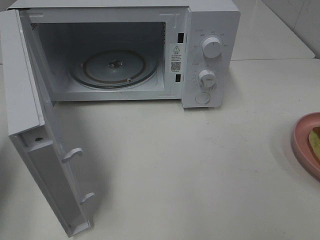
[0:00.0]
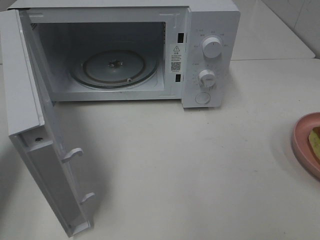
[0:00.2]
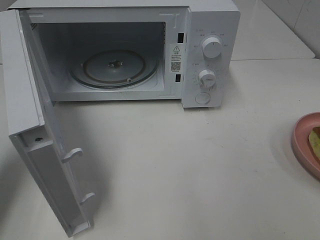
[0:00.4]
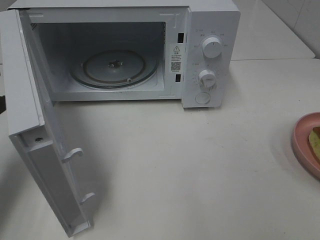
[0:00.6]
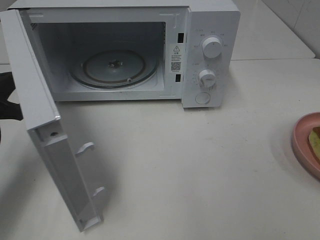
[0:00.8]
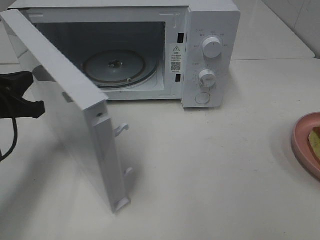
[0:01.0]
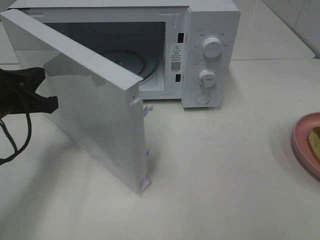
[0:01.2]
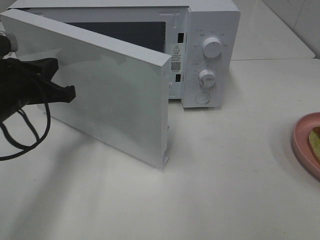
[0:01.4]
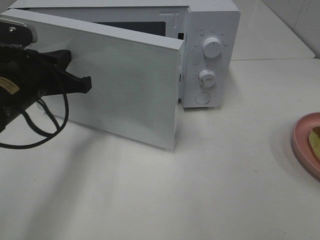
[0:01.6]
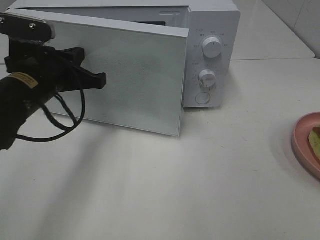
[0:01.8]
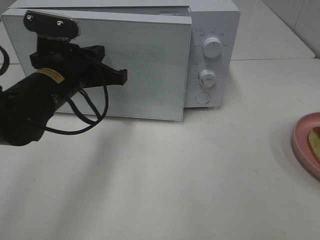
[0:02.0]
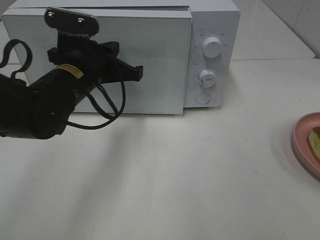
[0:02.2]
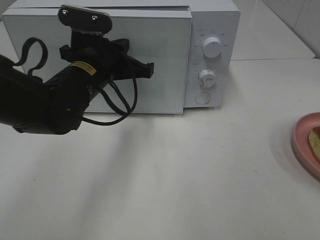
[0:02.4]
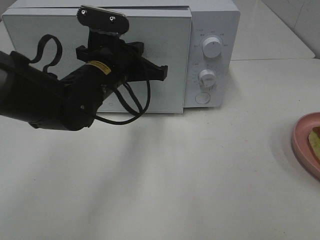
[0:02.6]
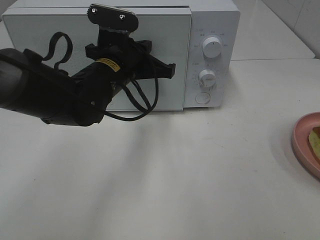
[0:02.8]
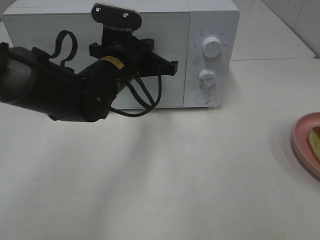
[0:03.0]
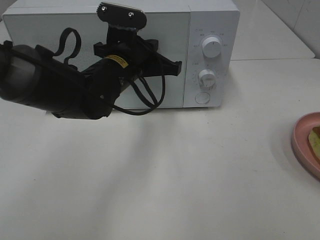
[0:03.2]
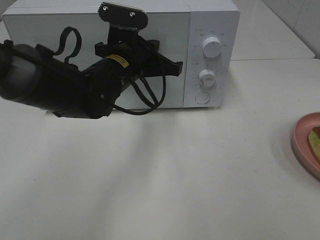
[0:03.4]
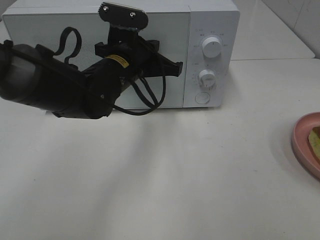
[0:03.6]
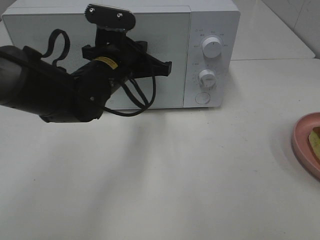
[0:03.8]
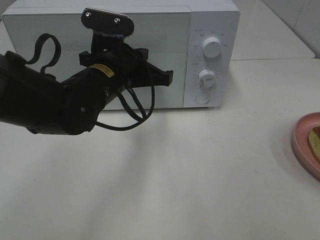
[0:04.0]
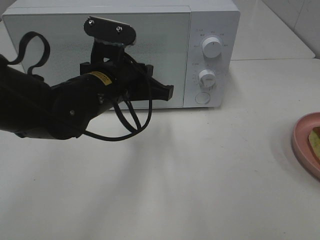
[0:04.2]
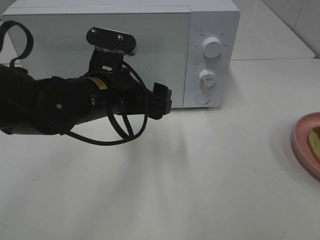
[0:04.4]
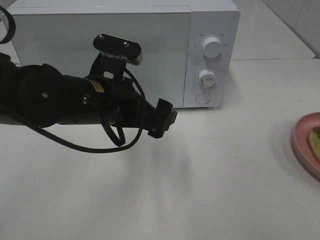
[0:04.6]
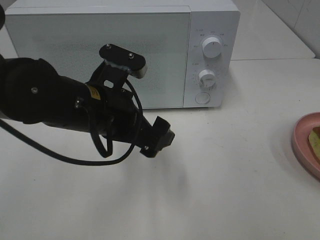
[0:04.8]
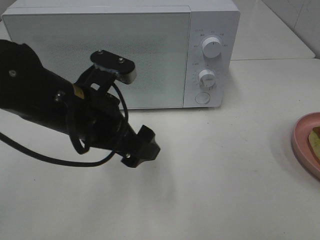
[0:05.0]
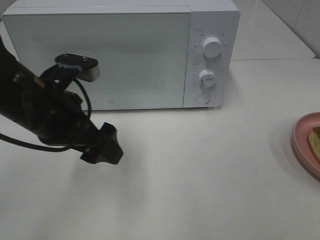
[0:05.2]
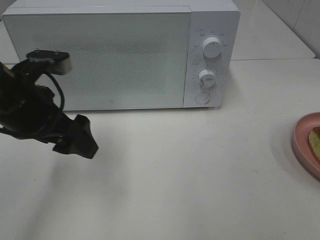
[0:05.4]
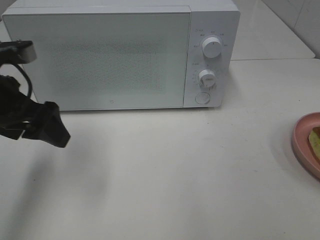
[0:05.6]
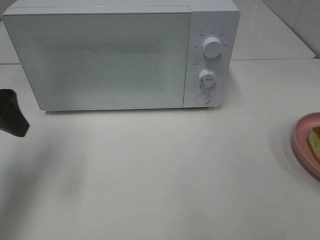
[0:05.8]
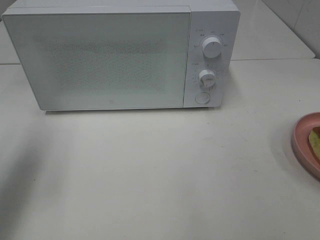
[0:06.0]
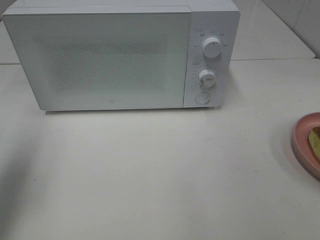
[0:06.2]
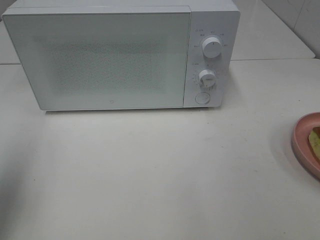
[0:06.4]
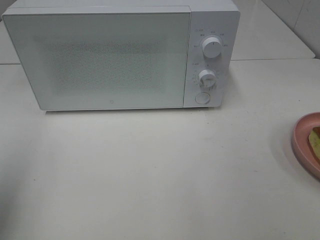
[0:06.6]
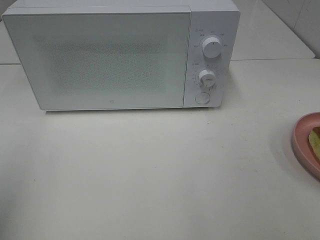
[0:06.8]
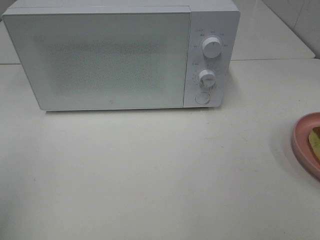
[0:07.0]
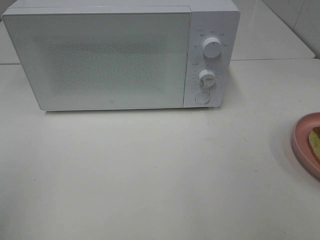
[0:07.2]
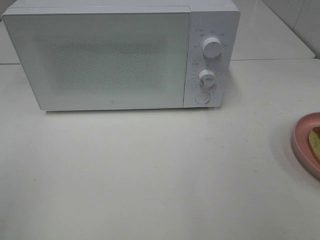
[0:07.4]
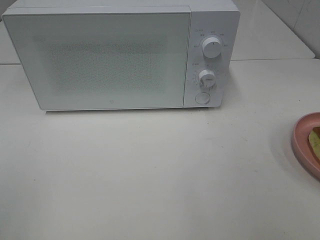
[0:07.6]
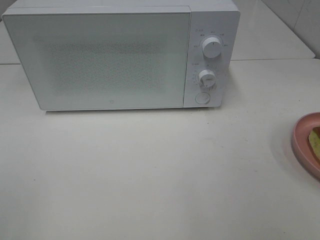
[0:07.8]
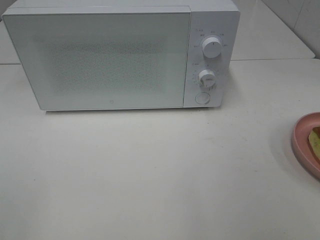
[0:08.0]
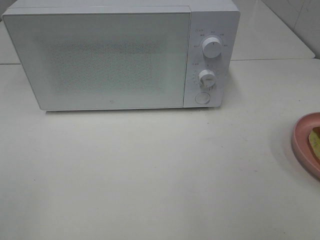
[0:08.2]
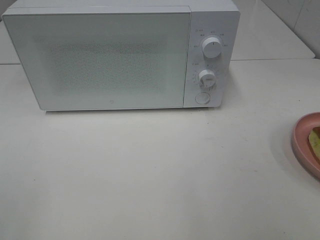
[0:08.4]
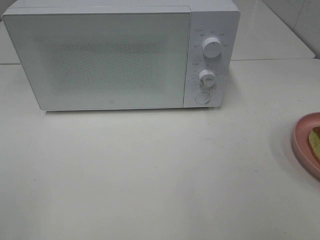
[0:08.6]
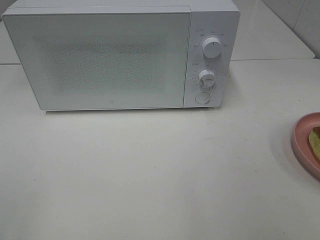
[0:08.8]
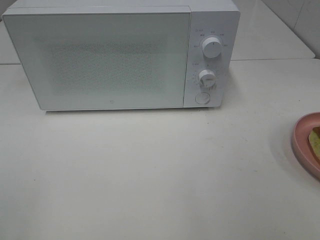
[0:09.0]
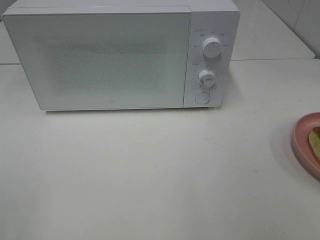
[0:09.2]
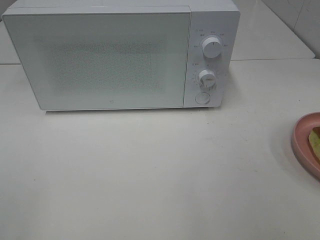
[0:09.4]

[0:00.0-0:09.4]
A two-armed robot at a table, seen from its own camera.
Task of the whole recording: Heat Sandwich.
Step, 0:00.0 to 0:04.0: Left hand: close the microwave door.
0:00.0 to 0:01.6: The left gripper goes approximately 15 cm to the right and forward.
0:01.6 to 0:03.2: The left gripper shifts approximately 15 cm to the right and forward.
0:03.2 to 0:04.8: The left gripper goes roughly 10 cm backward, and opens up.
0:04.8 to 0:06.2: The left gripper heads to the left and upward, covering about 25 cm.
0:06.2 to 0:07.8: The left gripper shifts approximately 20 cm backward.
0:07.8 to 0:09.4: Both grippers stay about where they are.

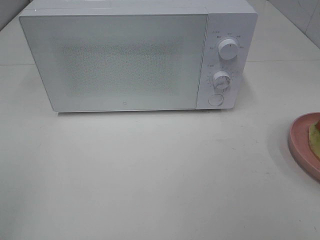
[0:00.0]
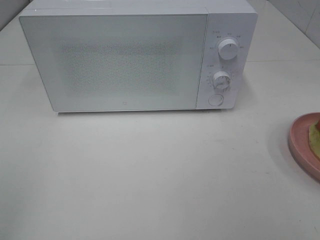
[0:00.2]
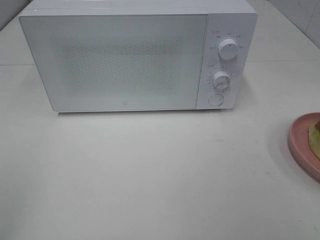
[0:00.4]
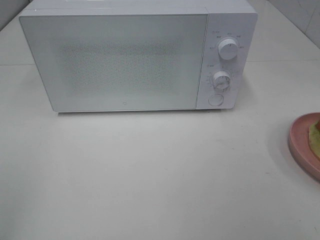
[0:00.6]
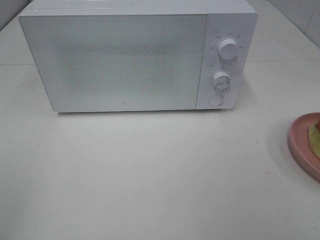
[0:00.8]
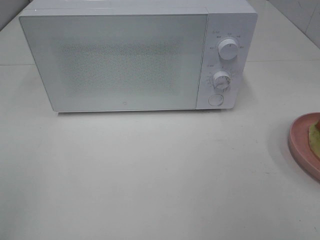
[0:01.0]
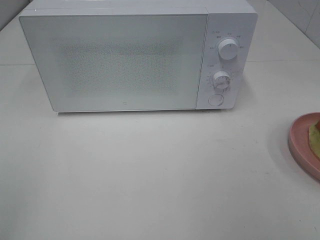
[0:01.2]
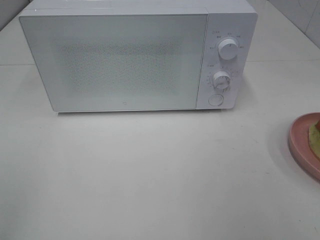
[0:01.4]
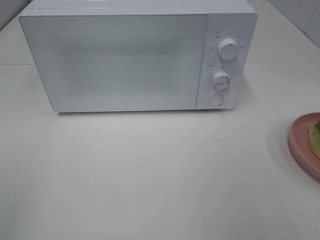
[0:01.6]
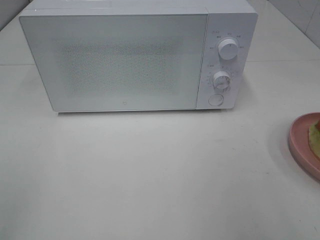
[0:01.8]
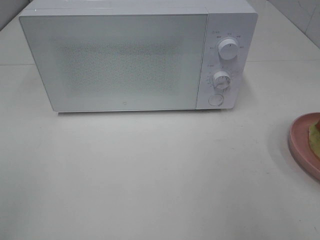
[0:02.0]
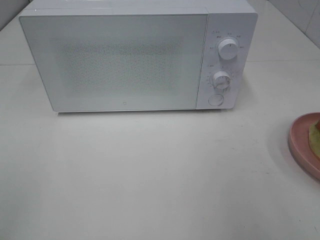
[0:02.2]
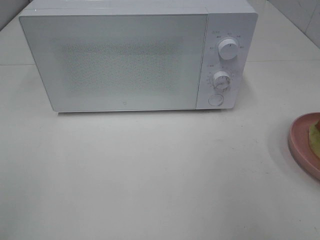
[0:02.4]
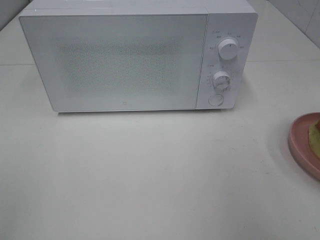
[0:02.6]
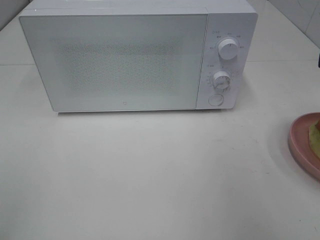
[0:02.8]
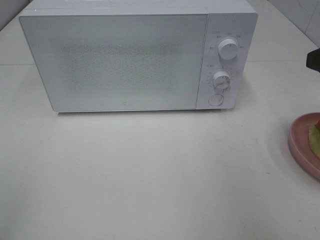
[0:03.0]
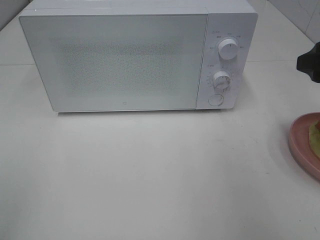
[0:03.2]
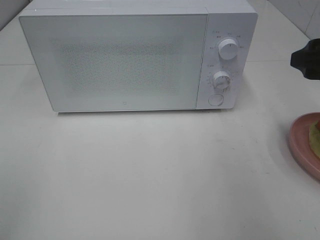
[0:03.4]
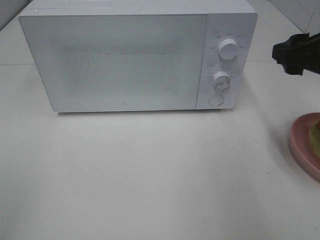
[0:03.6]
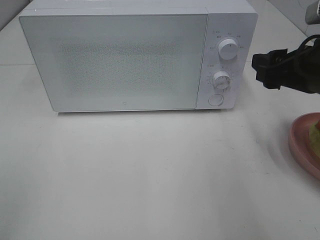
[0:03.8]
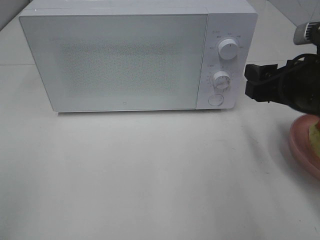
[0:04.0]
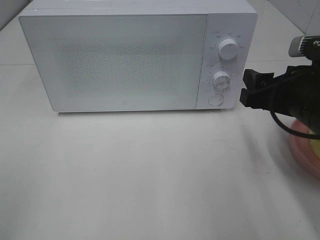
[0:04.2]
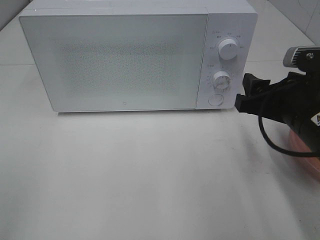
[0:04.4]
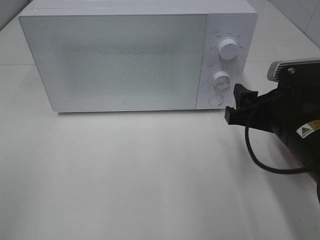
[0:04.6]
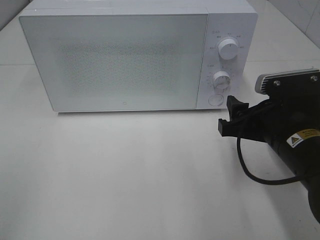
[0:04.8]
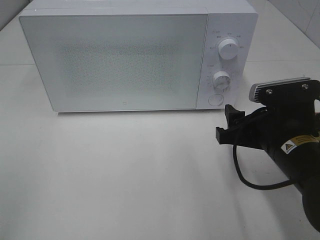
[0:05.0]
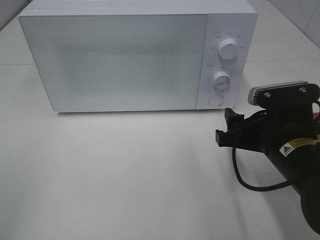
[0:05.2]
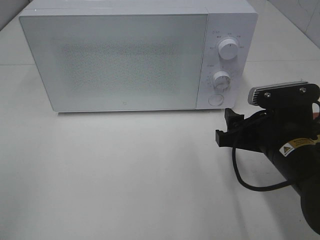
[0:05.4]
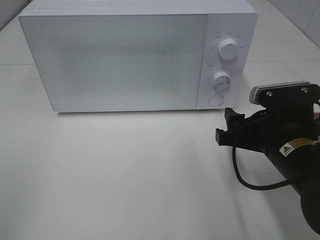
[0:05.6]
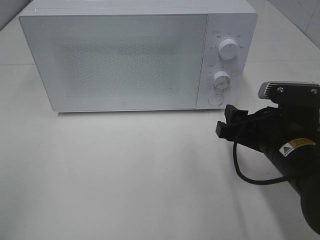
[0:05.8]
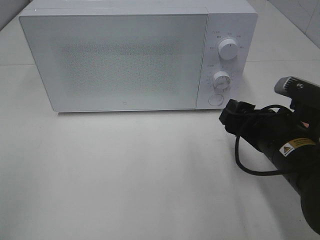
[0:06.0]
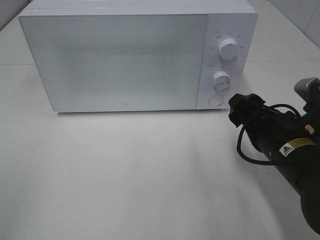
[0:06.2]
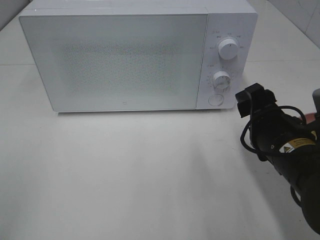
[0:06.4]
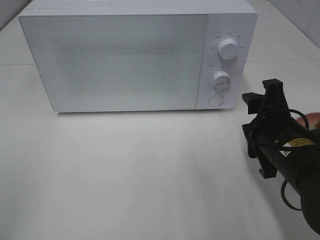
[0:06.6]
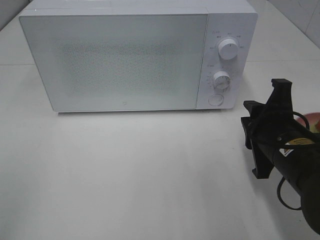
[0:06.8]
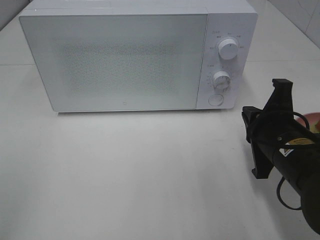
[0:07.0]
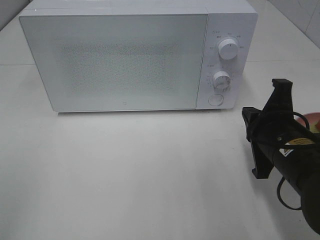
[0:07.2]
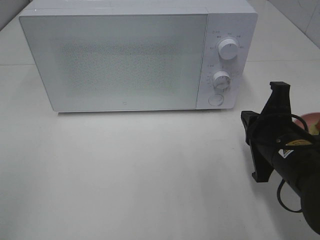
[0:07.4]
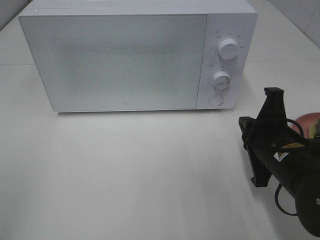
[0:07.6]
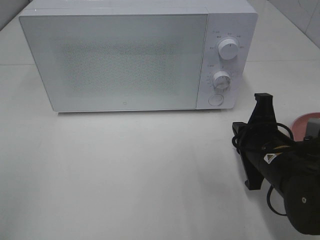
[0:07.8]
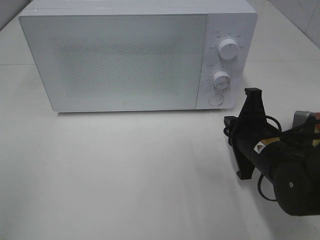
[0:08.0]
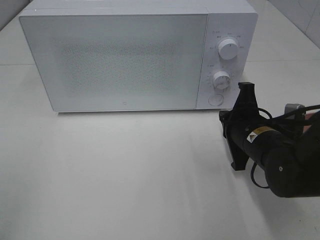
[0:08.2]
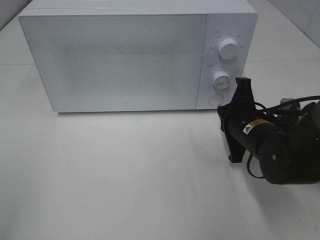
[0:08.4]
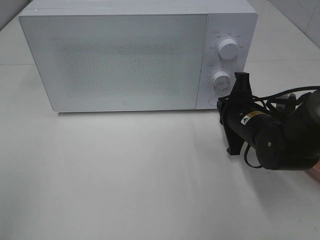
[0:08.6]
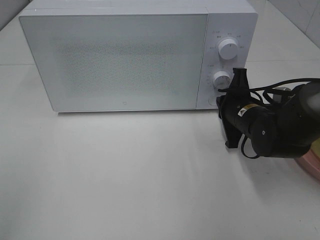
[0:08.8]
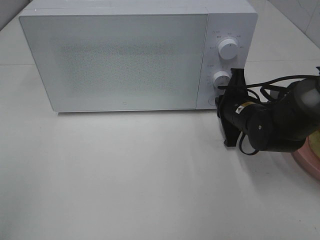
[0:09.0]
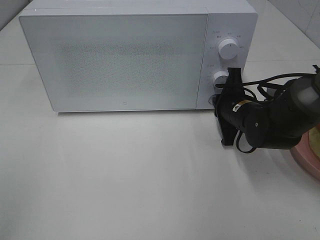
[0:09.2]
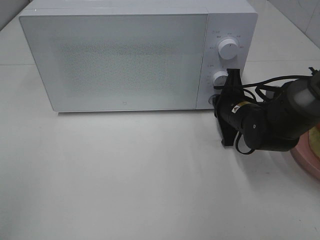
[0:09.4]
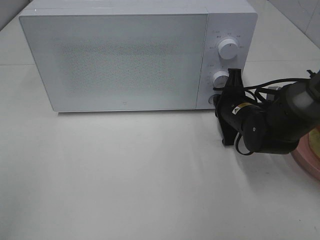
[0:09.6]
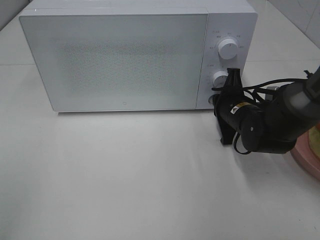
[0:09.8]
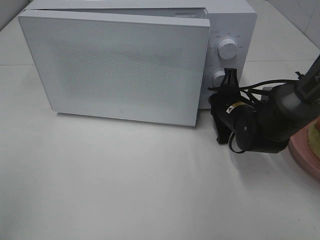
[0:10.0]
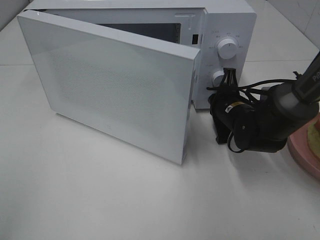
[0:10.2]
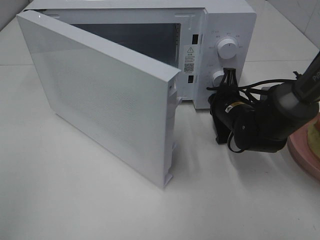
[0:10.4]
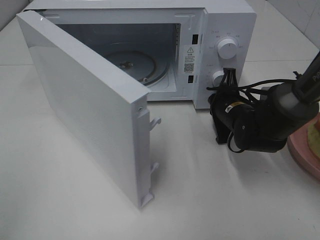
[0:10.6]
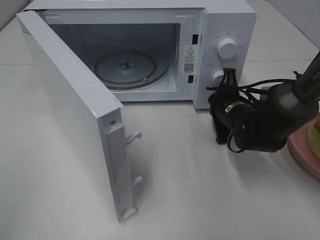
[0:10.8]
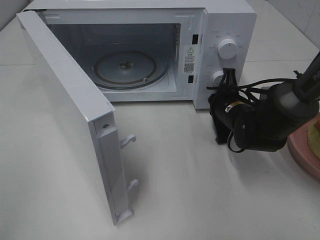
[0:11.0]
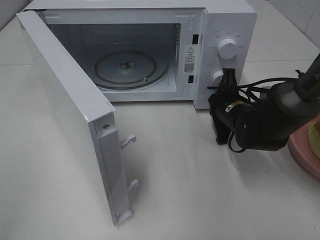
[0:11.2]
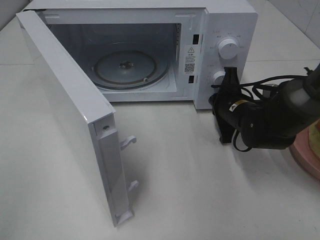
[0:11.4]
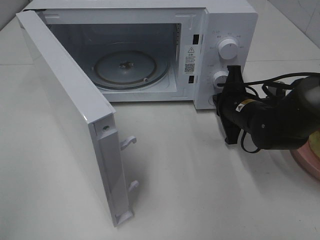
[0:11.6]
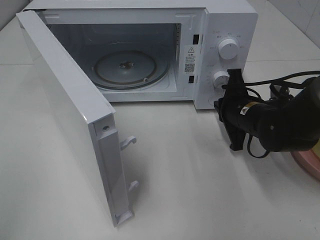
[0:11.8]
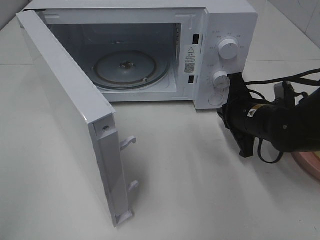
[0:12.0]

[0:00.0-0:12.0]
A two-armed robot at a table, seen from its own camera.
Task of the whole recording: Heat Sandwich.
Step, 0:00.0 to 0:11.8: Right hand: press the switch.
0:03.0 to 0:04.4: The right gripper goes some 10 cm downward and to the left.
0:06.0 to 0:07.6: The right gripper closes up.
0:07.6 to 0:09.0: The right gripper goes about 15 cm forward.
0:10.4 to 0:12.0: The right gripper goes some 5 cm backward.

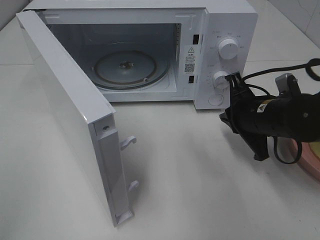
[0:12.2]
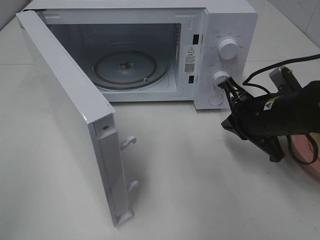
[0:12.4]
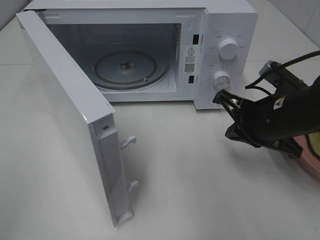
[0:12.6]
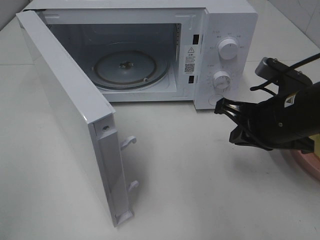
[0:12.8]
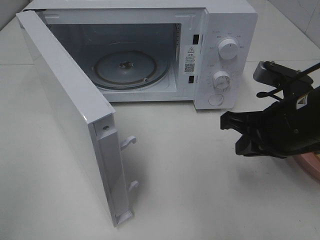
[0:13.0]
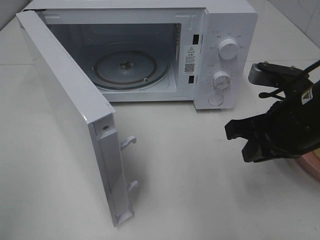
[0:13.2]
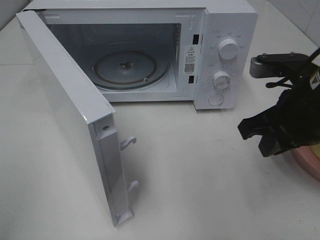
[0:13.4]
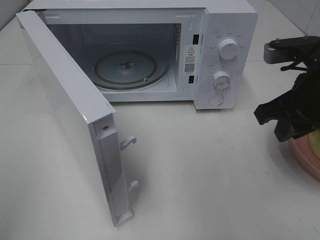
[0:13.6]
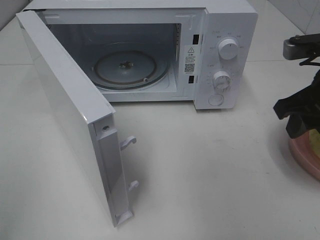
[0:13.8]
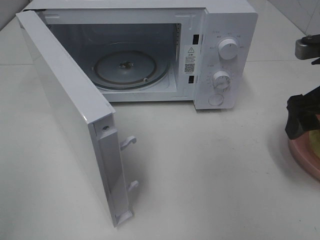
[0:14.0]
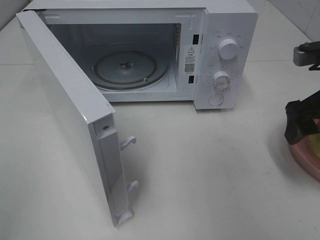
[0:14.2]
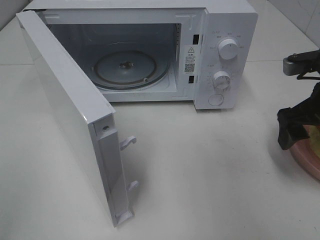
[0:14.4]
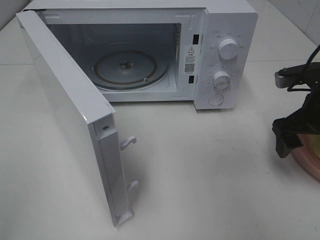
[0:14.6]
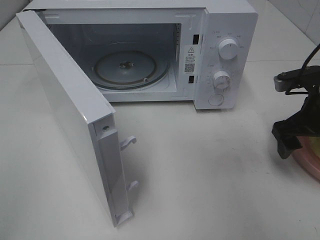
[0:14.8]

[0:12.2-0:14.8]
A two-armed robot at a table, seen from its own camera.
Task of the whole recording: Heat Sandwich.
0:12.2 to 0:13.4: The right gripper shifts some 10 cm upward and backward.
0:13.4 to 0:14.8: The right gripper heads to the right, forward and downward, covering some 10 cm, and opens its fingers.
